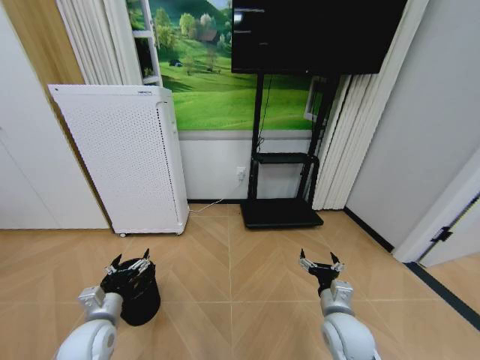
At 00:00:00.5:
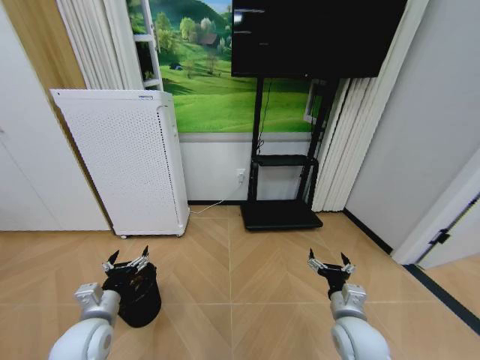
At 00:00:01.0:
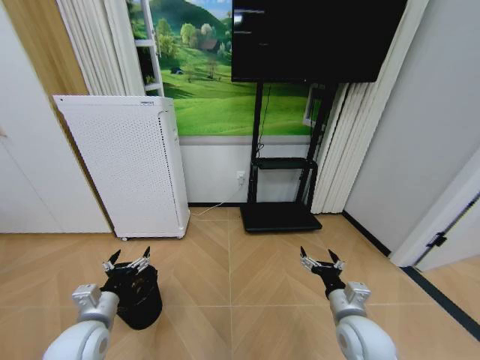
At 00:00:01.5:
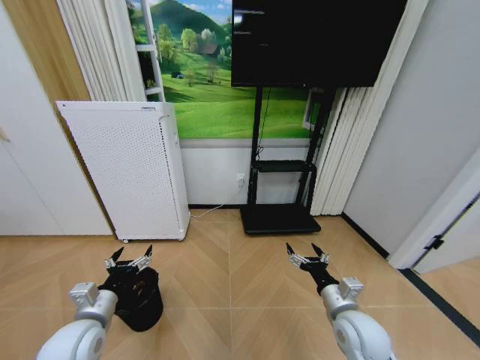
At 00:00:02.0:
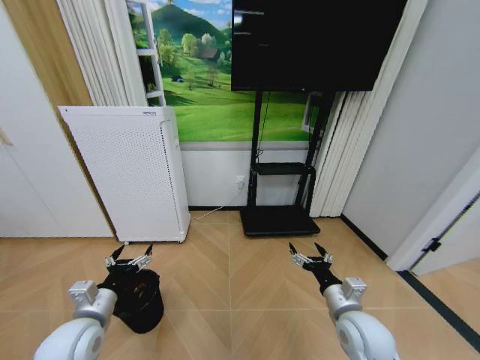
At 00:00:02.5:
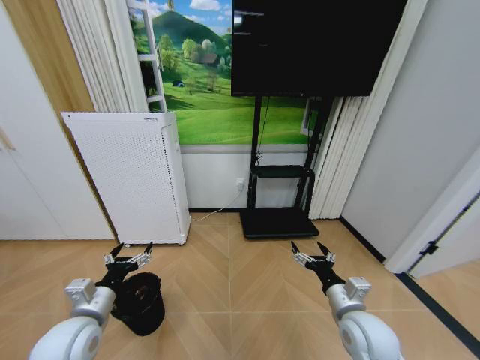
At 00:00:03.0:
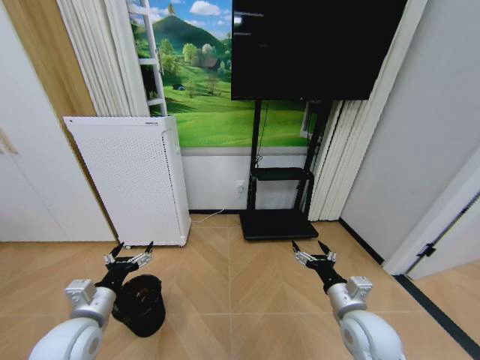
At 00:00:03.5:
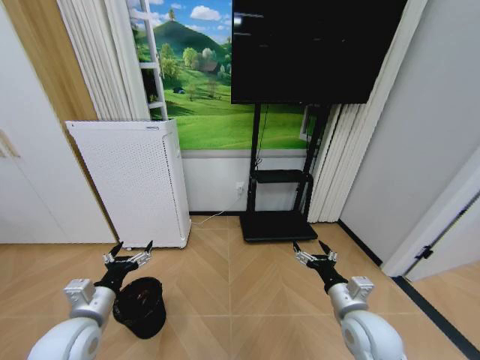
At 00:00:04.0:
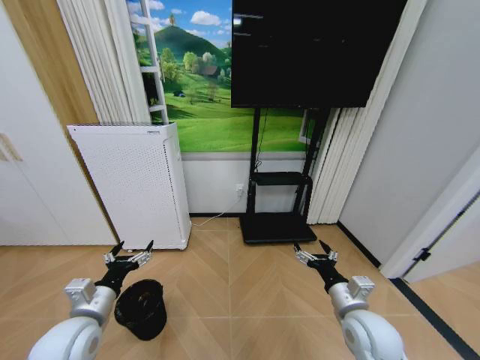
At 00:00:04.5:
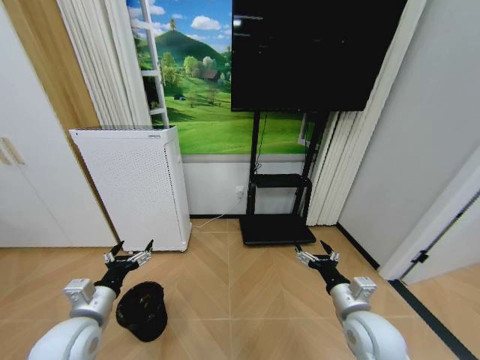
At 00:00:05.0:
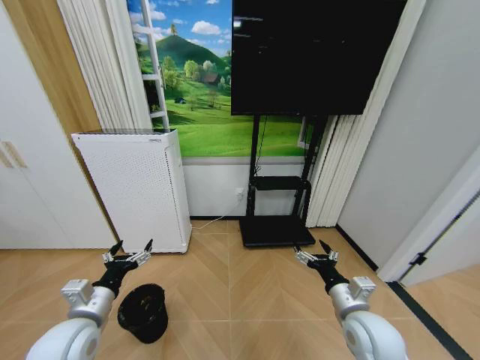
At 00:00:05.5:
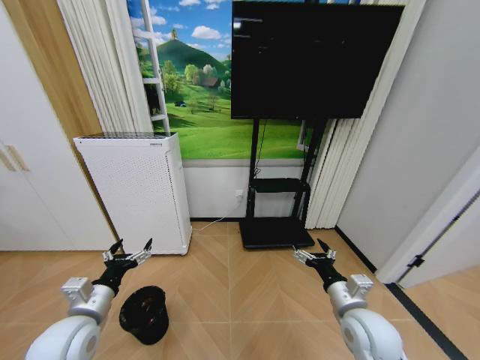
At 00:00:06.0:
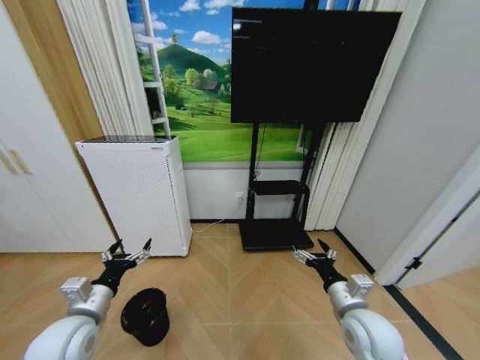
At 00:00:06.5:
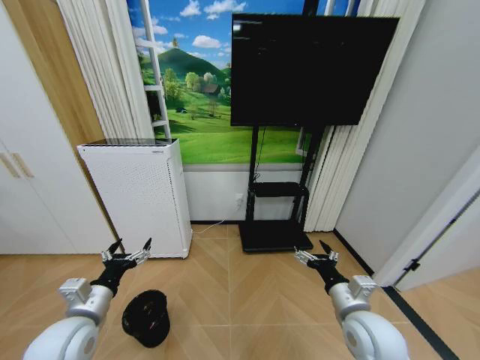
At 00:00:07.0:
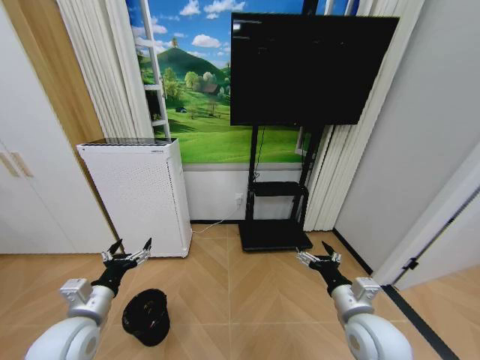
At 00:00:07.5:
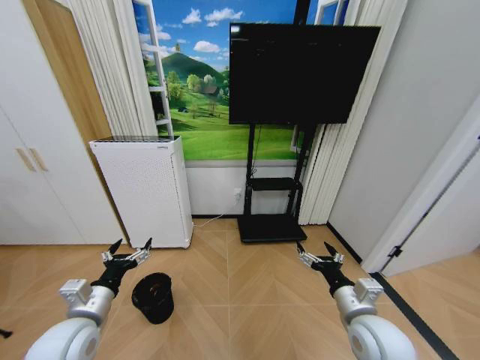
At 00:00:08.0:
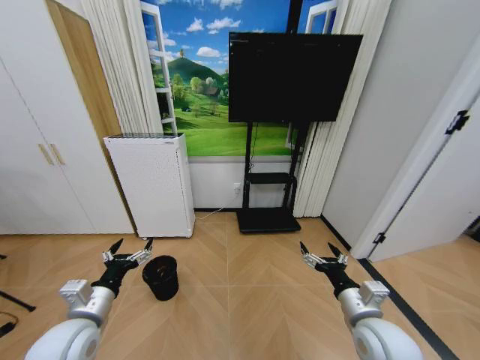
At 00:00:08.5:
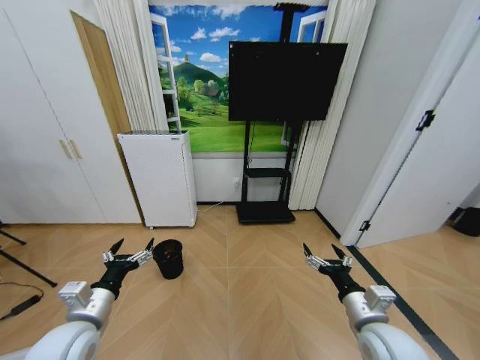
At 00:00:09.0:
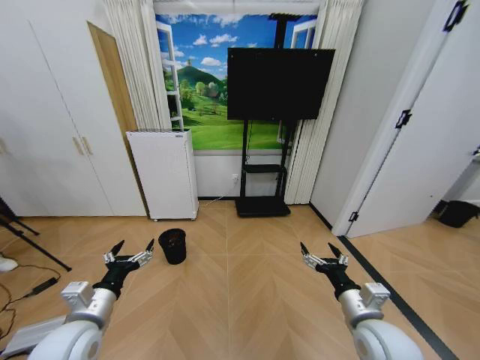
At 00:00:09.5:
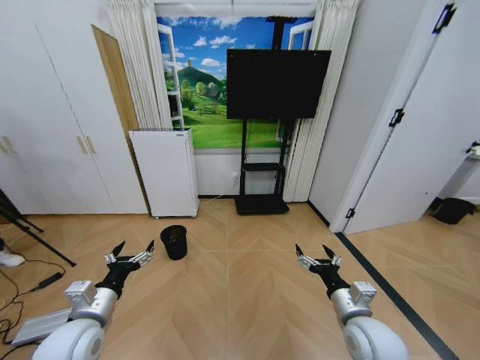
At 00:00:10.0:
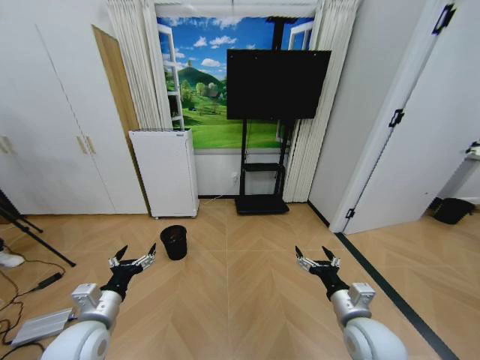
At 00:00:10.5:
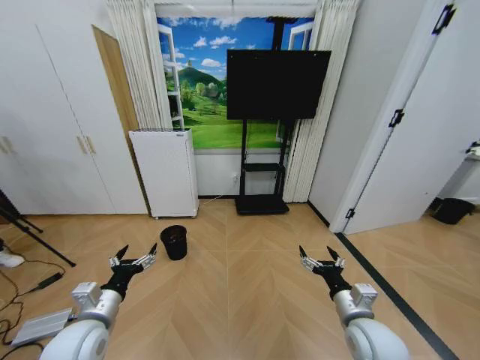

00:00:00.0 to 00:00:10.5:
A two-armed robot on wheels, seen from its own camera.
Task of the whole recording: Pick up the trash bin and place the garbage on the floor into it.
00:00:00.0 to 00:00:02.0: The left gripper moves upward, approximately 5 cm.
00:00:02.0 to 00:00:04.0: The grippers move only a little.
